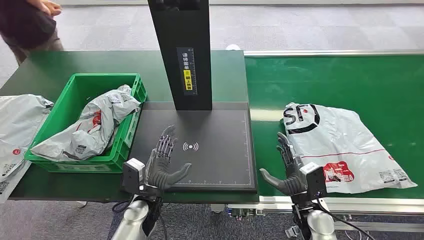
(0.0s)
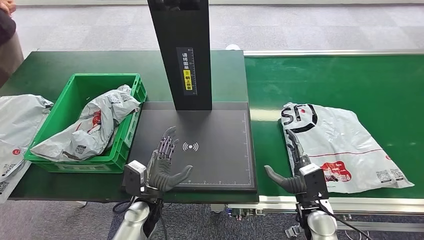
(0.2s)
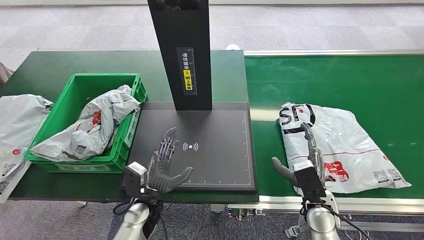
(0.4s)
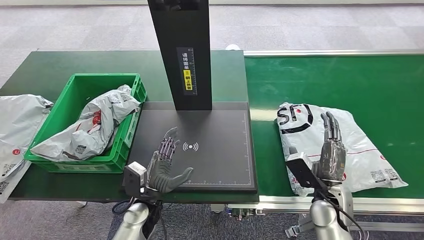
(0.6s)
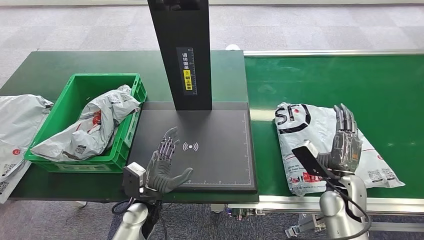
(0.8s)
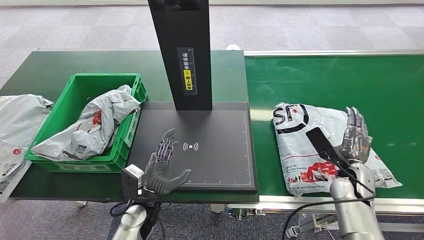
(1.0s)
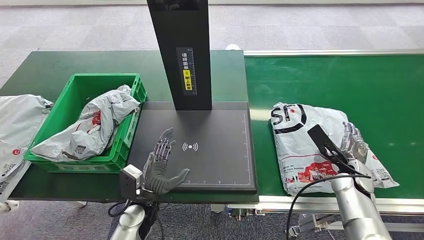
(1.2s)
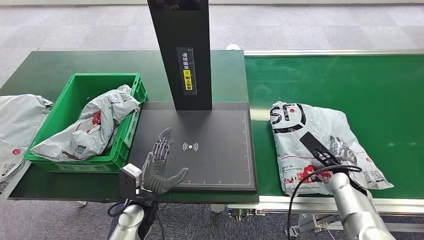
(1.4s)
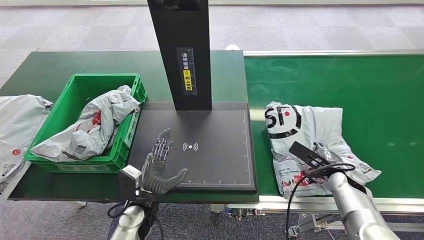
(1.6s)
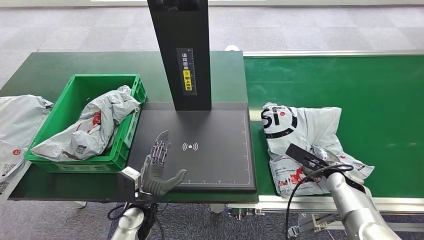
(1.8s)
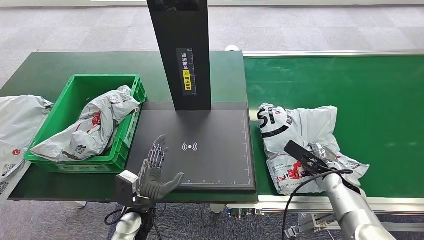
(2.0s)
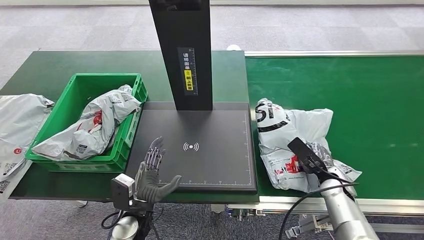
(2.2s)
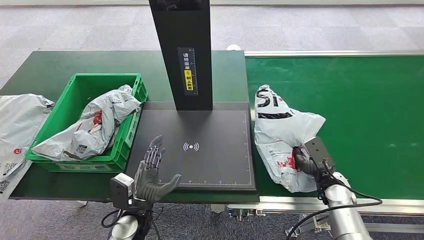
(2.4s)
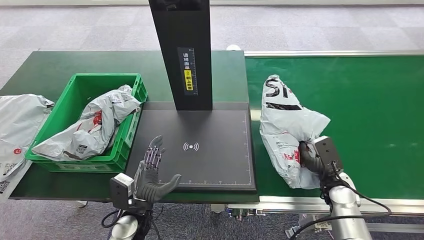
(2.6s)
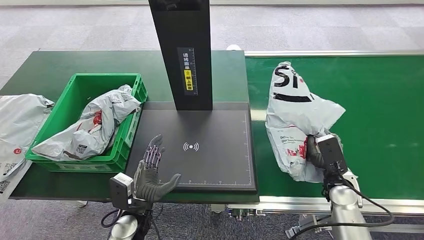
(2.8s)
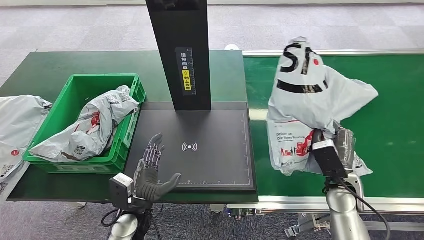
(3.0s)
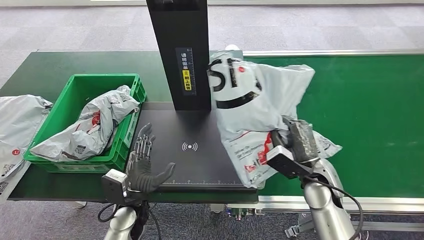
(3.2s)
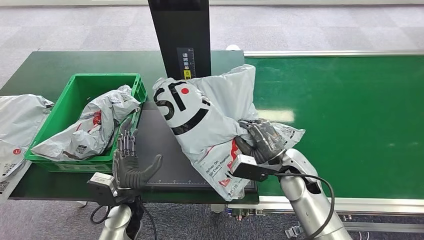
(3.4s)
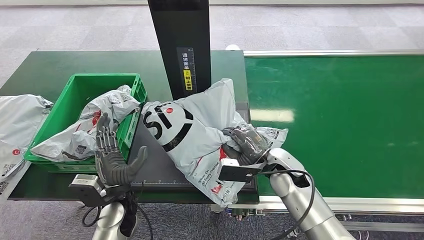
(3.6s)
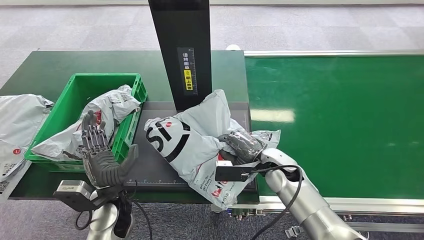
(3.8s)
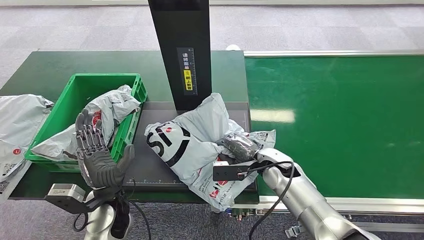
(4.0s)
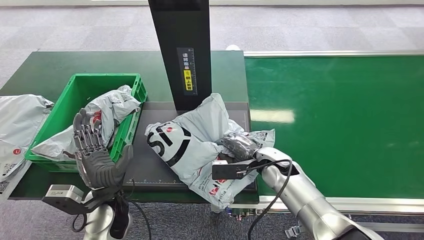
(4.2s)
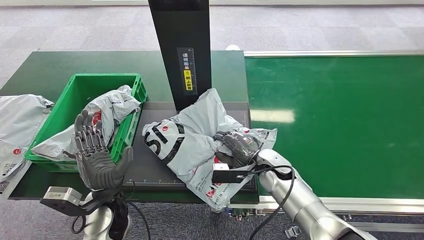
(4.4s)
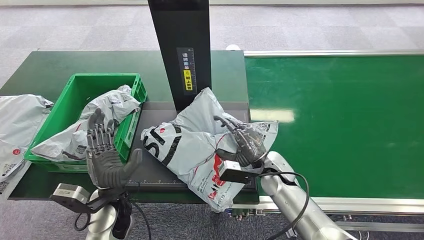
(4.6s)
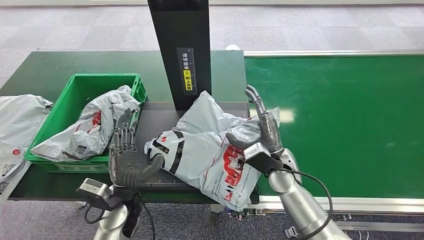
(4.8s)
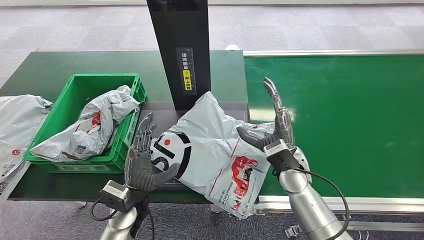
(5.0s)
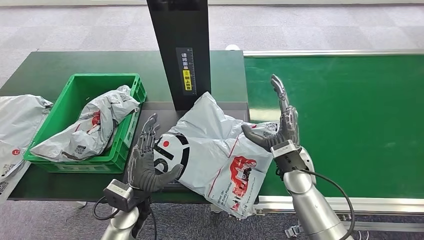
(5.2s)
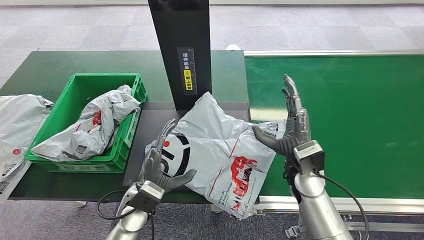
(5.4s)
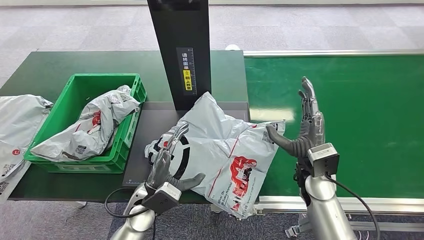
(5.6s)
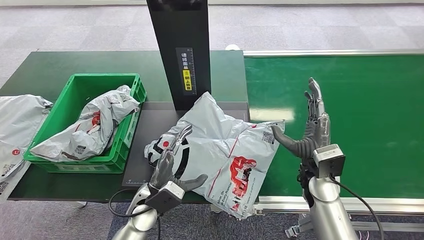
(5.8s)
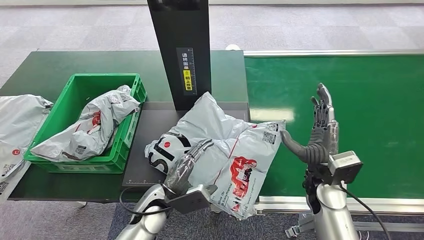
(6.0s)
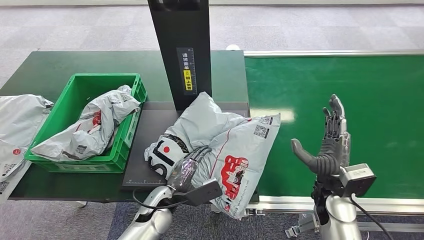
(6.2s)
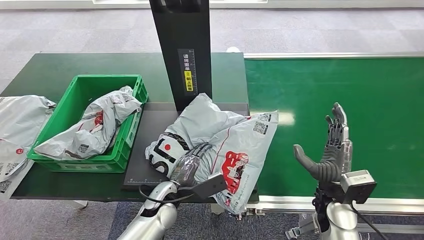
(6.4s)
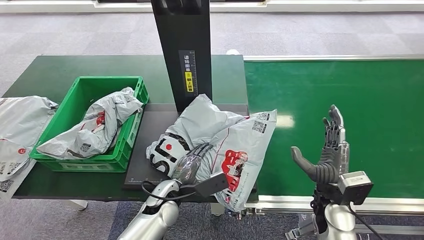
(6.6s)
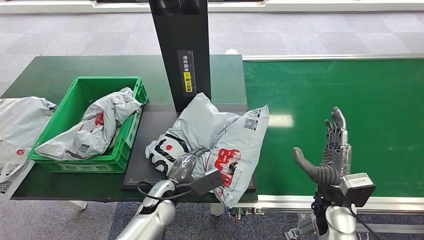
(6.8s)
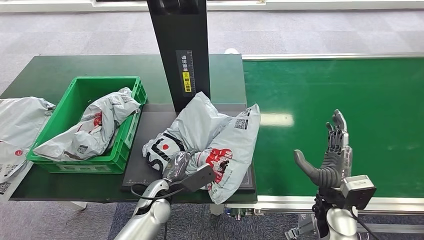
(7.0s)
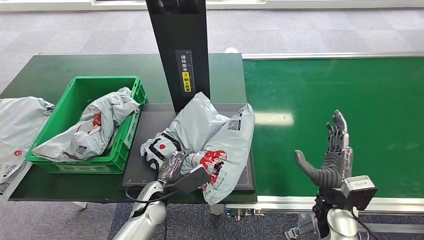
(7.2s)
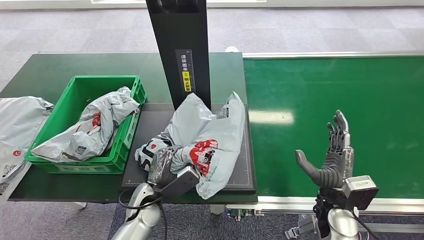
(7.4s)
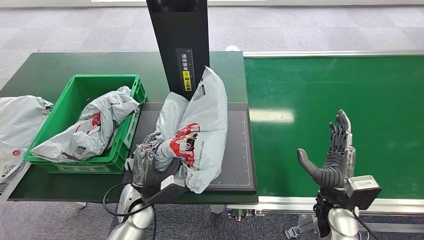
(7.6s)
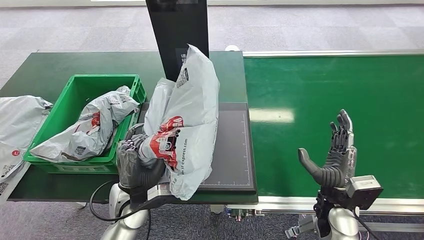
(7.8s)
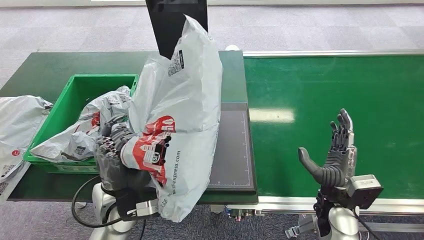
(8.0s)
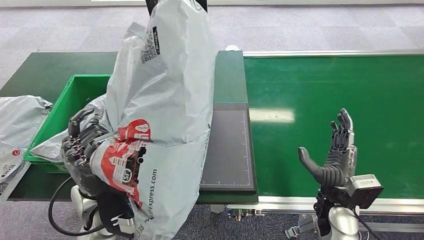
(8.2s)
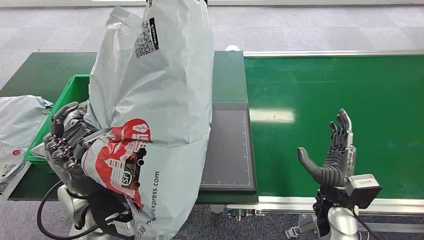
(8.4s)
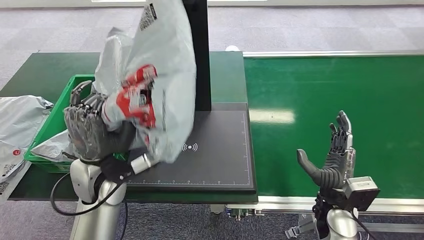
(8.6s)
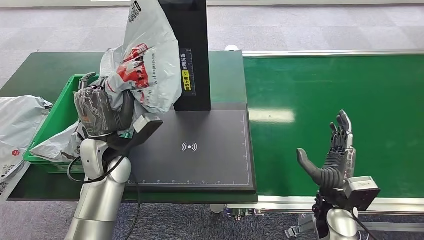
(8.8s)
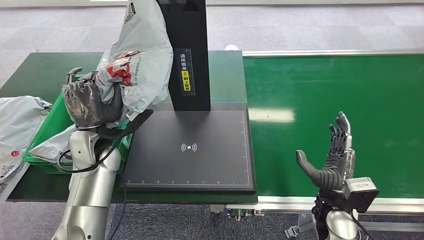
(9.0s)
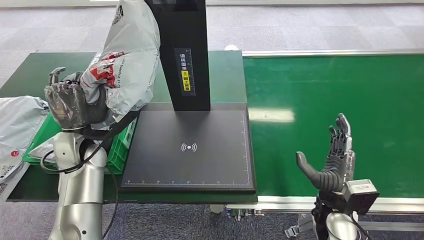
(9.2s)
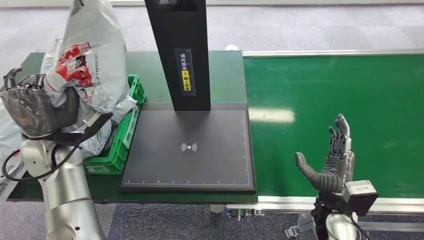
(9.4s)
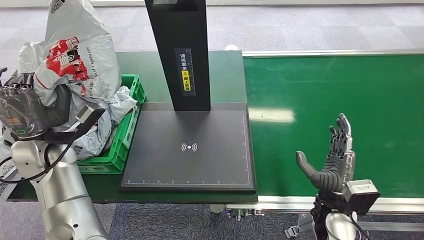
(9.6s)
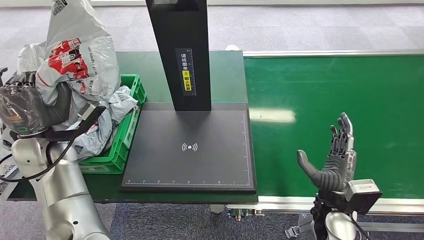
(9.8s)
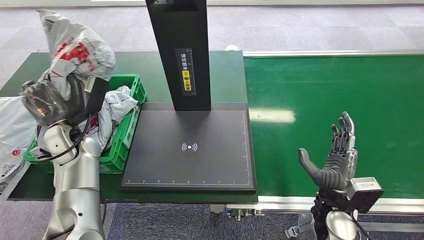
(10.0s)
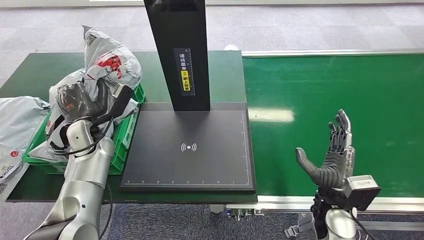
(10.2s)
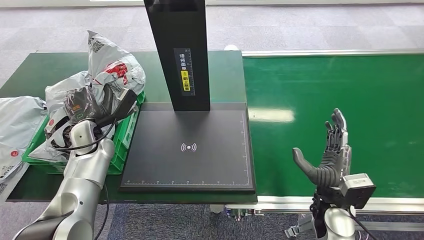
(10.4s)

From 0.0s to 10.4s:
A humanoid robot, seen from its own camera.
Step, from 0.0s to 2.8s: Pick up the package from the conveyor belt.
Step, from 3.0s to 5.0s: Place the package onto the inbound machine.
Step, from 5.4s to 8.0s: Pick up the package from the inbound machine.
From 1.4s to 3.0s: The right hand shifts roughly 5 cm to the left.
From 9.0s to 10.4s: The left hand shifts some 5 cm to the left.

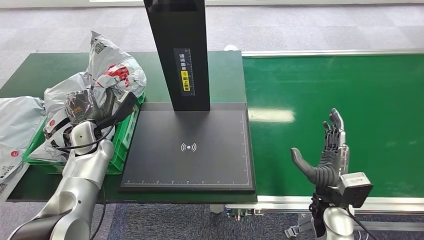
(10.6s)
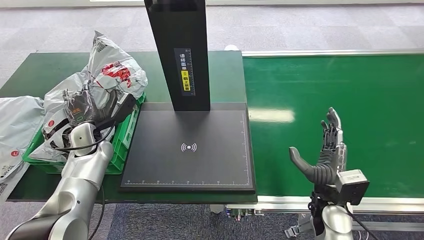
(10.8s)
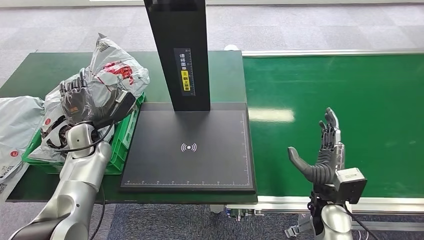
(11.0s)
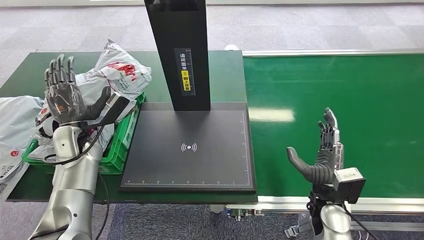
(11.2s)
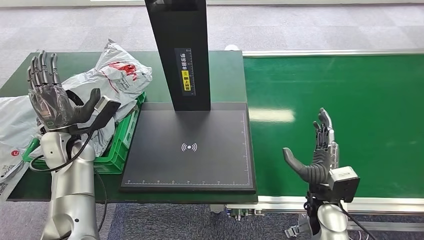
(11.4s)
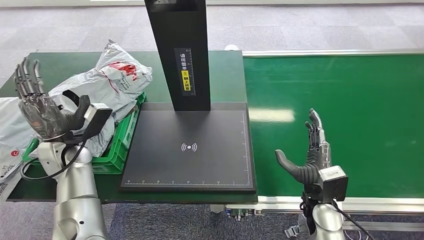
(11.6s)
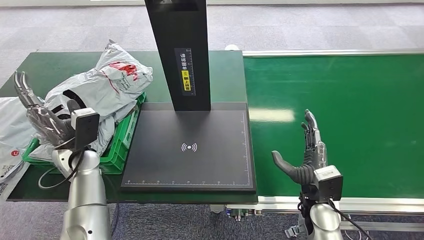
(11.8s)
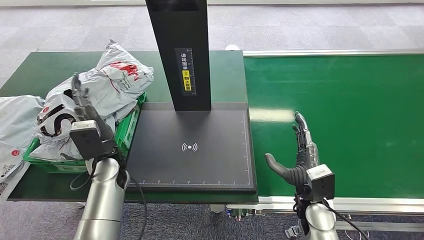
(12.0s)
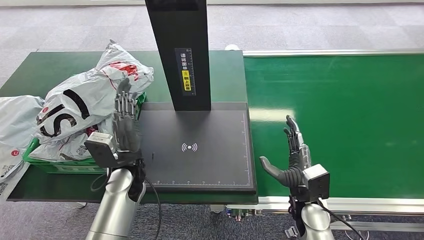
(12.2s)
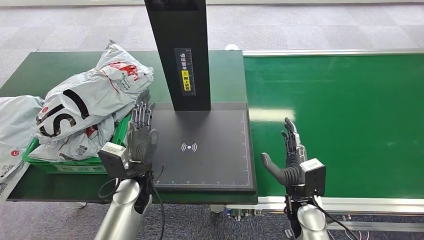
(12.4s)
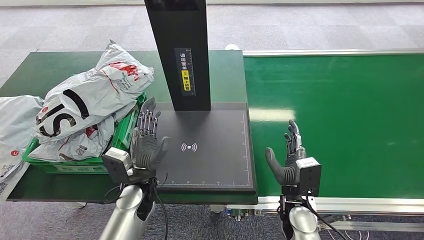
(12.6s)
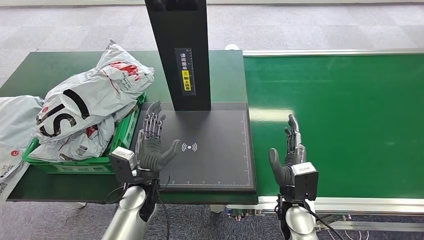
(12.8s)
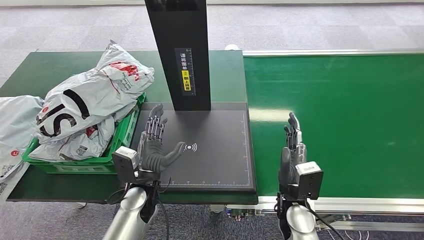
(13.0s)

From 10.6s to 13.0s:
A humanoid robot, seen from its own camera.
Step, from 10.6s to 13.0s: Place the package into the parcel locker.
From 10.6s to 11.8s: The left hand shifts by about 5 cm.
From 11.8s to 13.0s: The left hand is displaced to the right, backward and downward by roughly 20 cm. Meanwhile the right hand heads to the left, covering approximately 5 cm.
